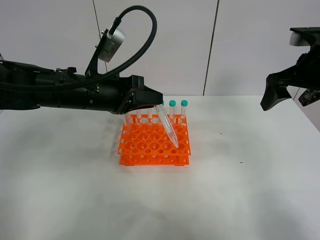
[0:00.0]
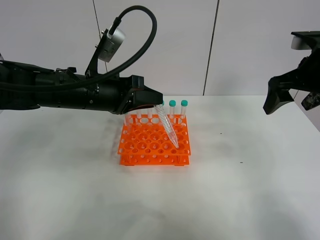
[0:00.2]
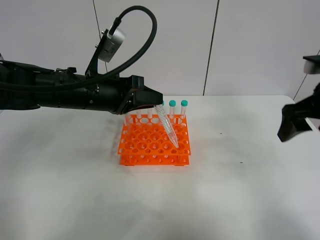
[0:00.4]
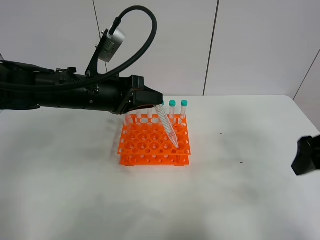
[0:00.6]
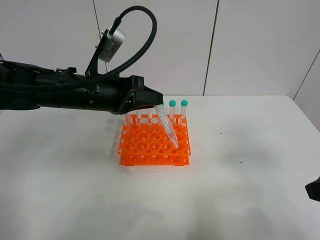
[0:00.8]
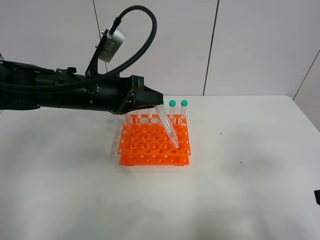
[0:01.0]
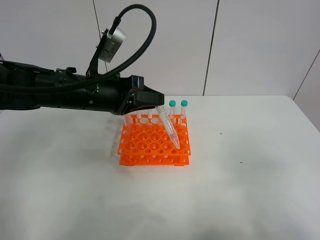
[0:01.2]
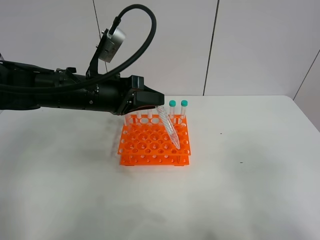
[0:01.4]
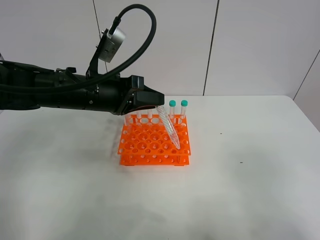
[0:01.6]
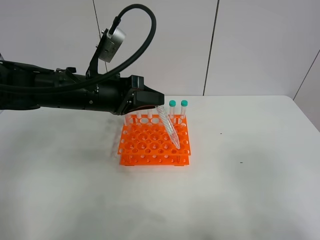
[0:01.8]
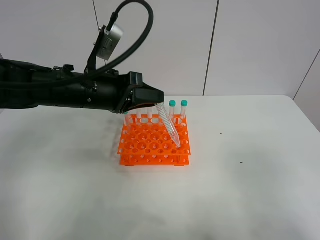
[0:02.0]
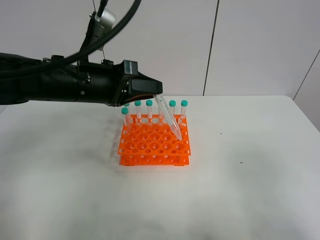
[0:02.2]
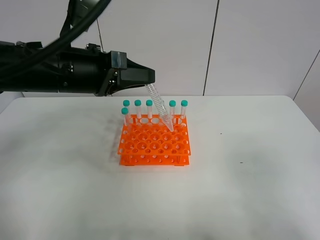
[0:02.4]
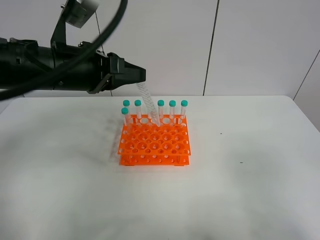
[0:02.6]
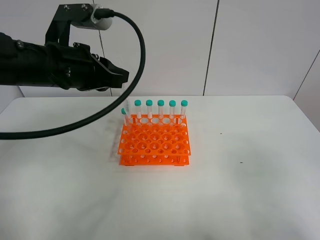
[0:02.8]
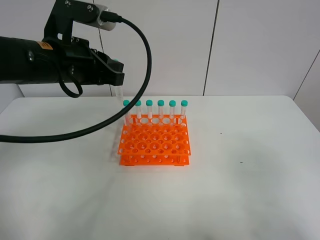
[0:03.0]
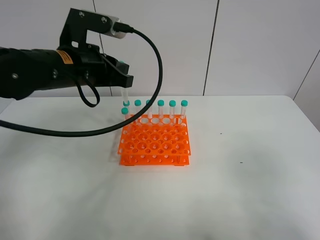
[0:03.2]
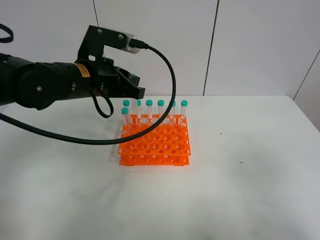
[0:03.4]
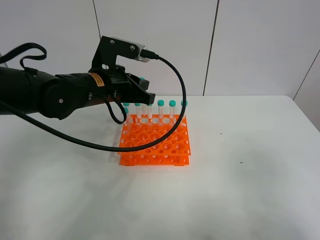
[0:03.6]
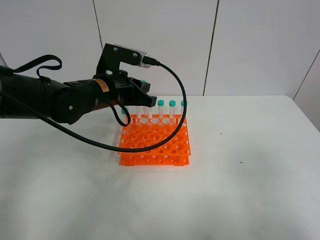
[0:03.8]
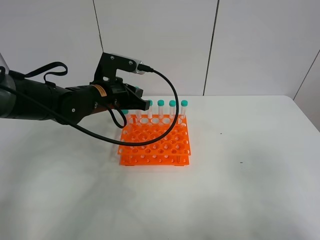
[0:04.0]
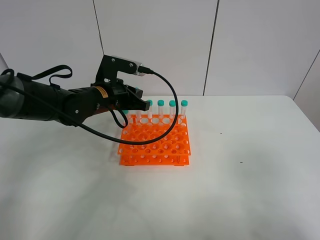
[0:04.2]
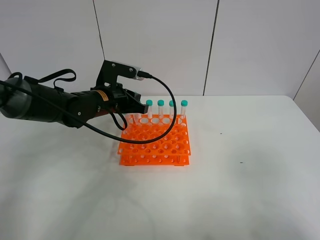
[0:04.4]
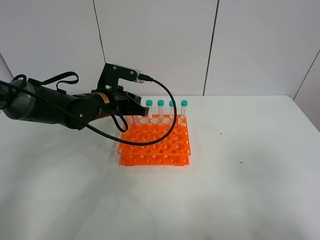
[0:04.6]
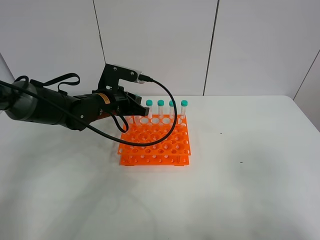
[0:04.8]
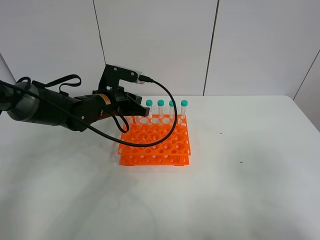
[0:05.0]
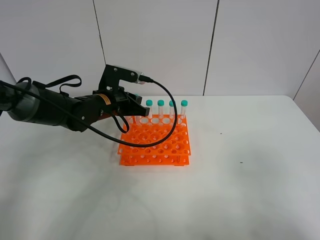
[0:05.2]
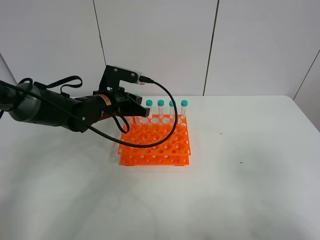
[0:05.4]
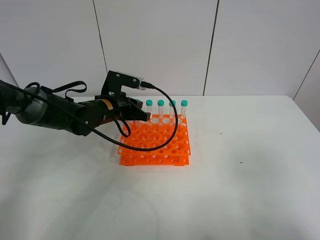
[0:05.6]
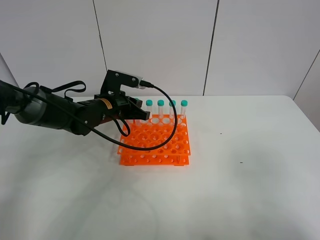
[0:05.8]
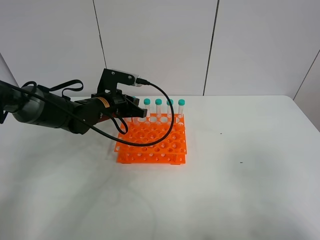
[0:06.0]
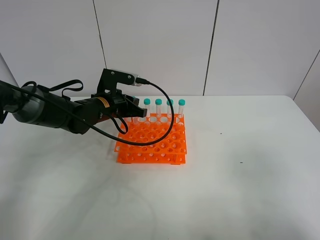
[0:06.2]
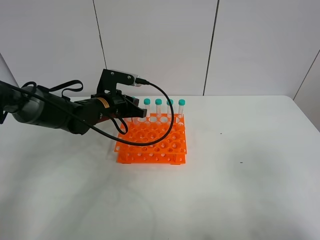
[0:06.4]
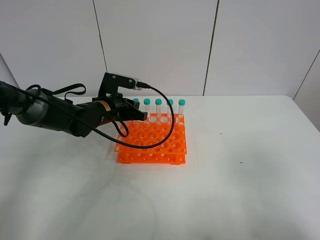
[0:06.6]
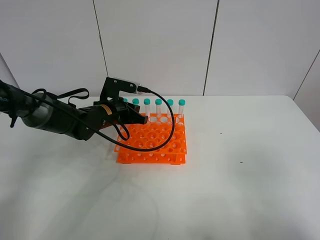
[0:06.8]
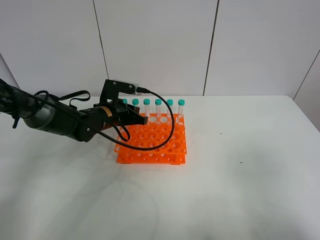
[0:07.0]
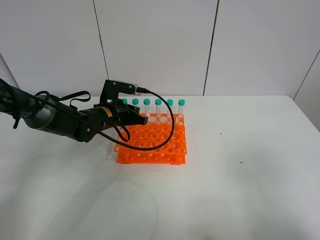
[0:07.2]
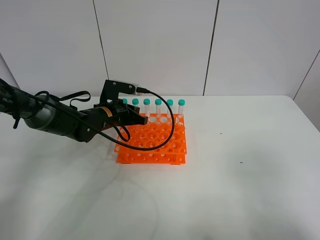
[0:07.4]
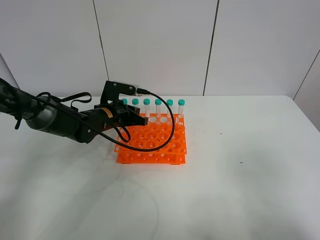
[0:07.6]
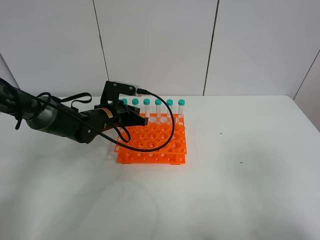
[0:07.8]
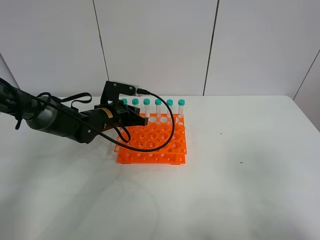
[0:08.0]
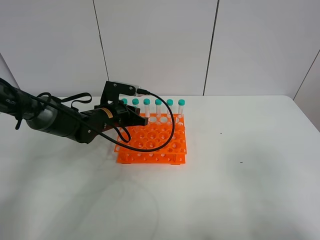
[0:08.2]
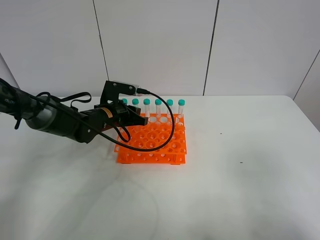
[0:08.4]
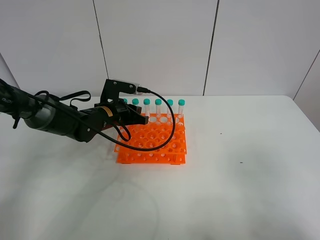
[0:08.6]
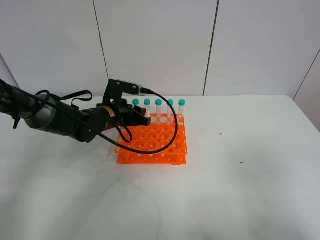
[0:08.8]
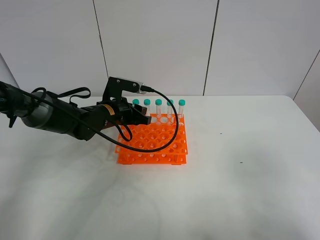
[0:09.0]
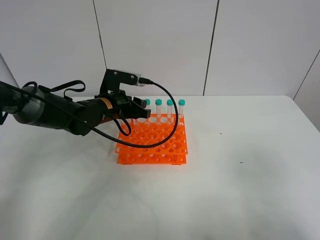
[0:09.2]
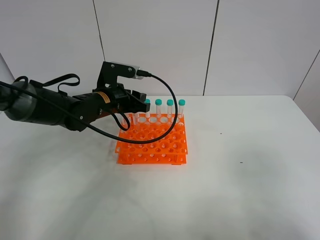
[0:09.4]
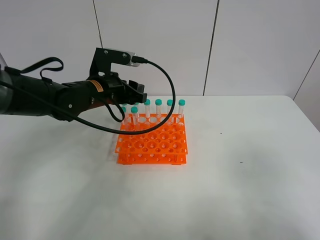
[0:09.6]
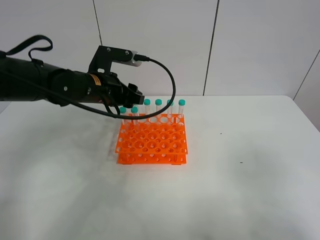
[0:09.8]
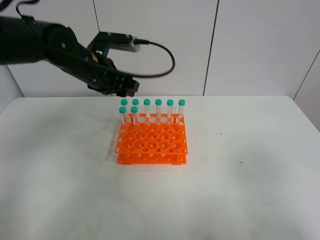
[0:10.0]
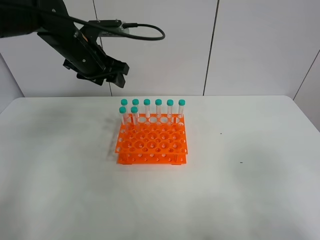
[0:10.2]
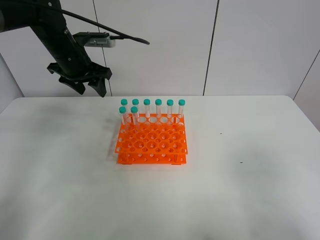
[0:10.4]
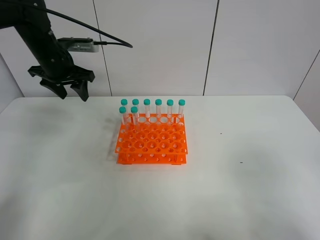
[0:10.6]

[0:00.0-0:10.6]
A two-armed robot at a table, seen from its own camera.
Task of the whole recording: Put the test tube on the table back onto the test tube rack.
Step, 0:00.0 to 0:08.6: Place the test tube on the test tube rack with the left gripper.
0:00.0 to 0:01.6: The right gripper heads backward, covering roughly 30 cm.
0:01.6 to 0:03.0: The left gripper travels upward by about 5 cm.
0:03.0 to 0:04.6: The left gripper moves downward and forward, roughly 15 cm.
0:04.6 to 0:07.6: The grippers make only small movements.
0:07.6 to 0:09.0: The left gripper opens.
0:09.0 to 0:10.6: The left gripper goes about 20 cm to the left, upward and forward.

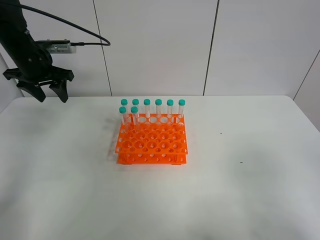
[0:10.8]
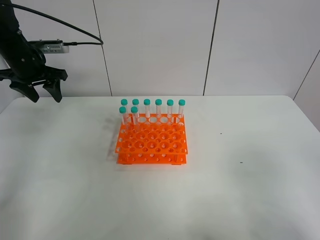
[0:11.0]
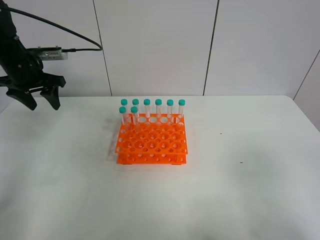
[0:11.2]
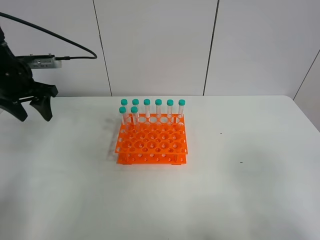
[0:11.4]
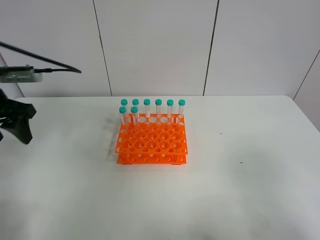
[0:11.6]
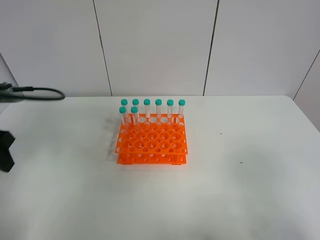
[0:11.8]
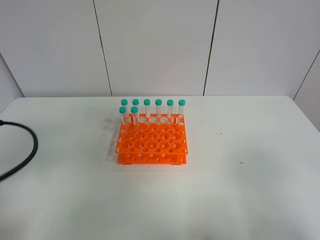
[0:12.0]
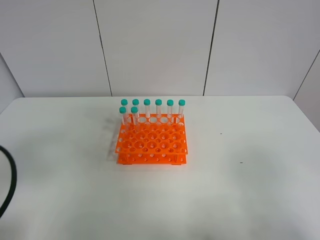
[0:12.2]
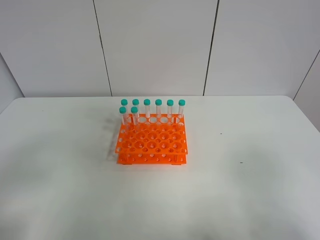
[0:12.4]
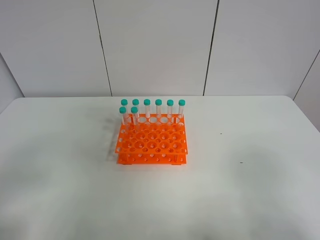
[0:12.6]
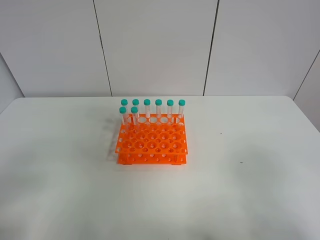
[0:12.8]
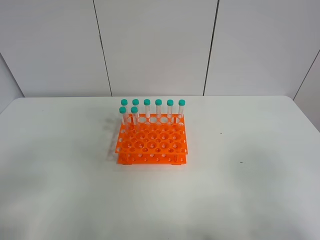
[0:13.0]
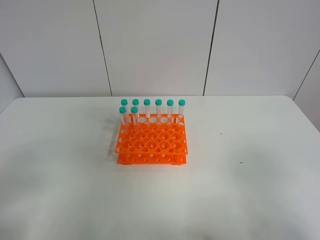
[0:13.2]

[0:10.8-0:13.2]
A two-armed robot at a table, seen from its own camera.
Task of the whole recording: Put the test tube on the table back onto the test tube rack.
0:10.8 to 0:12.0: The left gripper shifts approximately 30 cm backward.
0:12.0 to 0:13.2: The left gripper goes roughly 10 cm backward.

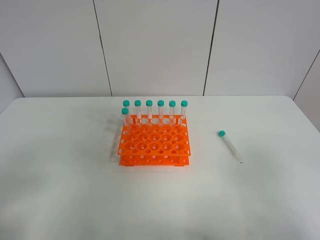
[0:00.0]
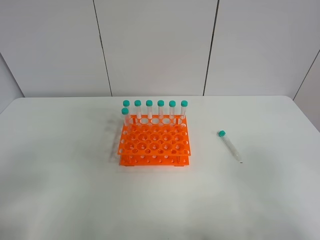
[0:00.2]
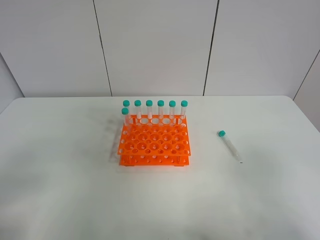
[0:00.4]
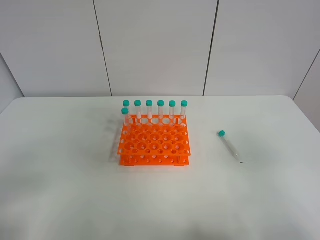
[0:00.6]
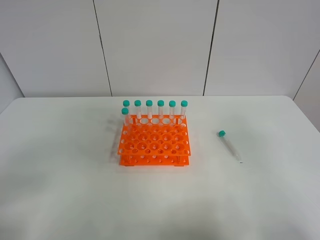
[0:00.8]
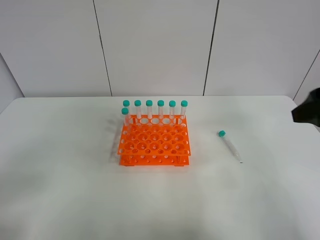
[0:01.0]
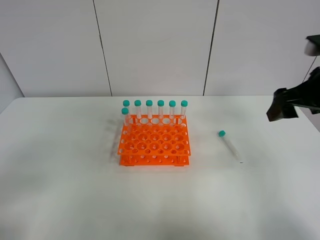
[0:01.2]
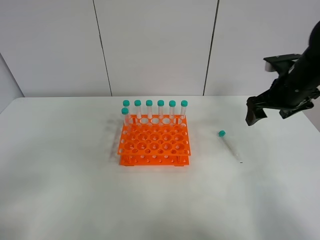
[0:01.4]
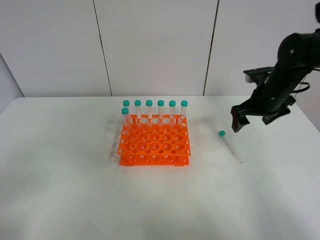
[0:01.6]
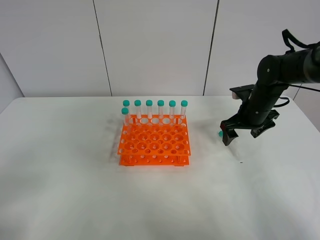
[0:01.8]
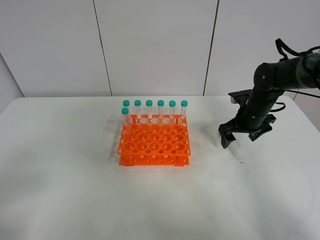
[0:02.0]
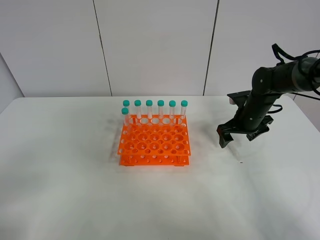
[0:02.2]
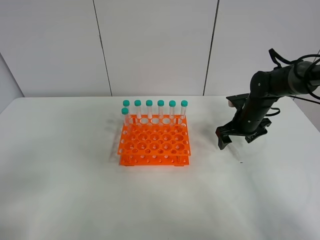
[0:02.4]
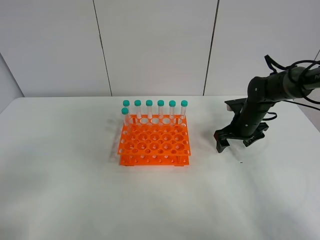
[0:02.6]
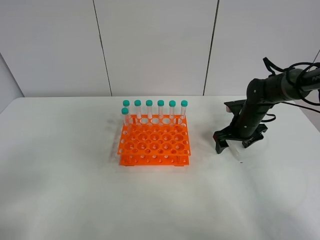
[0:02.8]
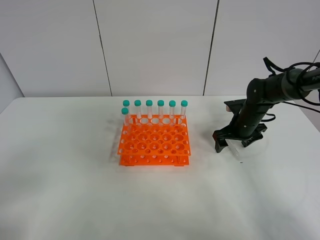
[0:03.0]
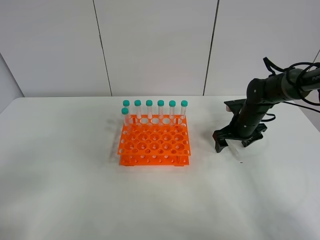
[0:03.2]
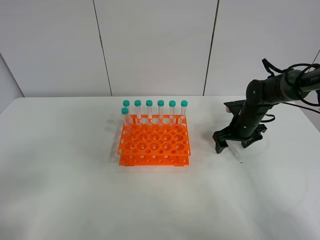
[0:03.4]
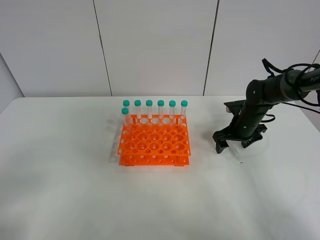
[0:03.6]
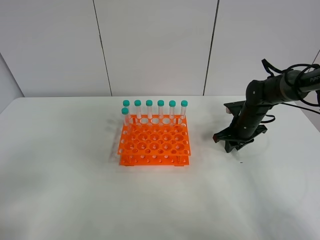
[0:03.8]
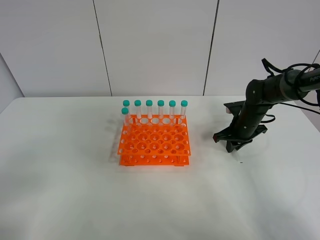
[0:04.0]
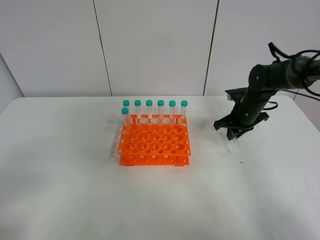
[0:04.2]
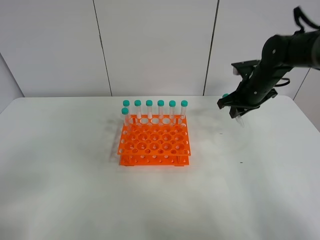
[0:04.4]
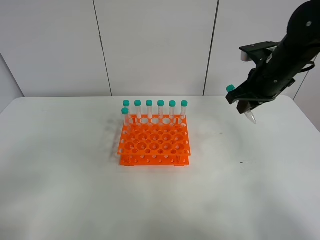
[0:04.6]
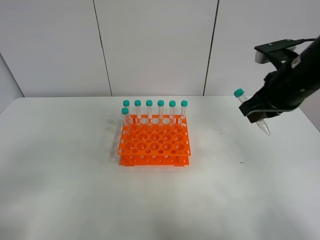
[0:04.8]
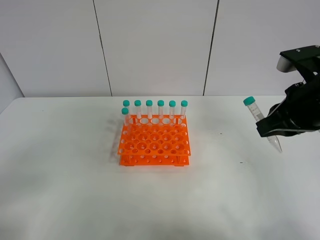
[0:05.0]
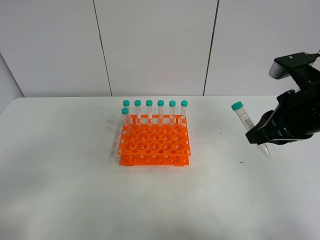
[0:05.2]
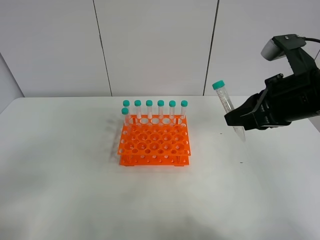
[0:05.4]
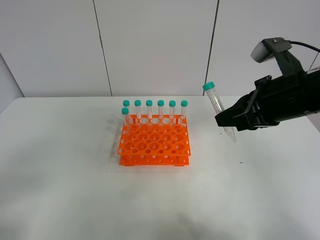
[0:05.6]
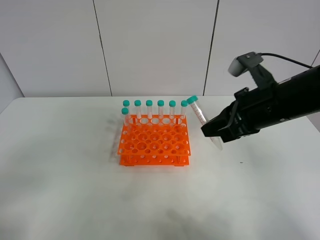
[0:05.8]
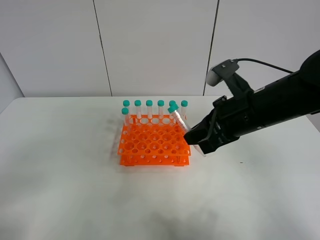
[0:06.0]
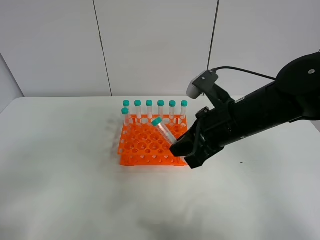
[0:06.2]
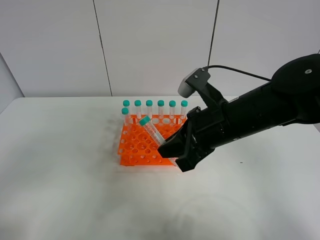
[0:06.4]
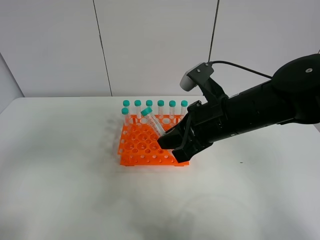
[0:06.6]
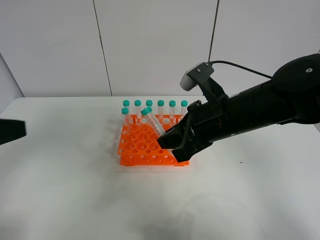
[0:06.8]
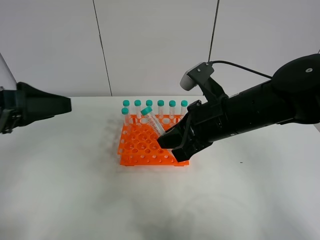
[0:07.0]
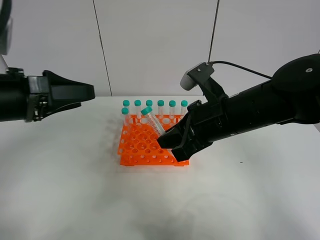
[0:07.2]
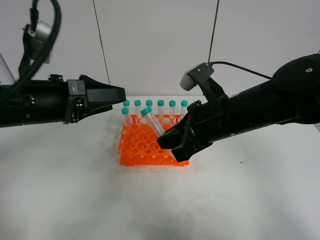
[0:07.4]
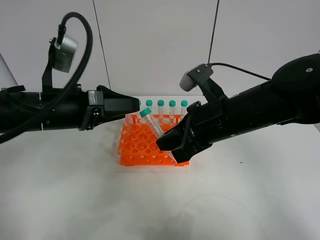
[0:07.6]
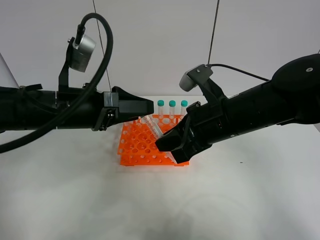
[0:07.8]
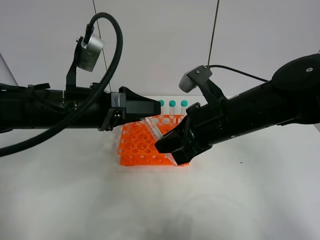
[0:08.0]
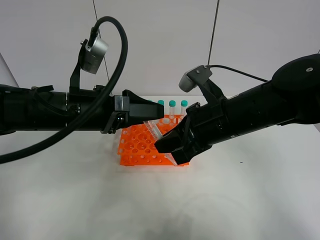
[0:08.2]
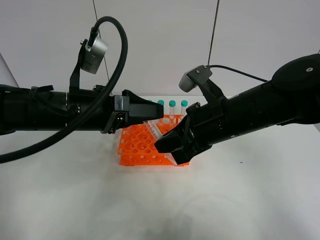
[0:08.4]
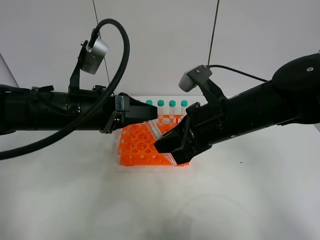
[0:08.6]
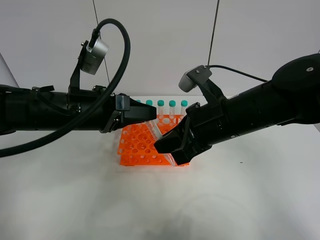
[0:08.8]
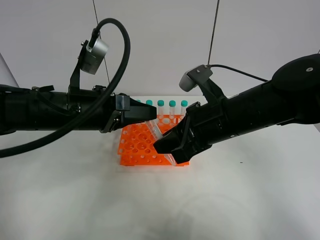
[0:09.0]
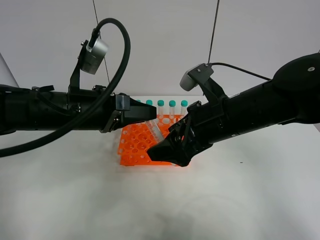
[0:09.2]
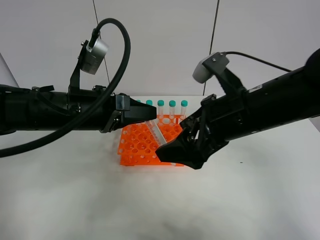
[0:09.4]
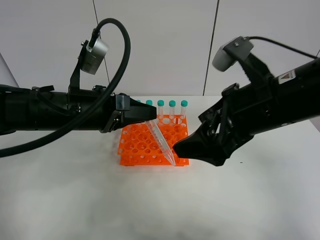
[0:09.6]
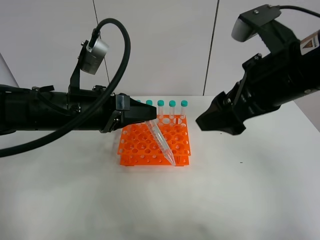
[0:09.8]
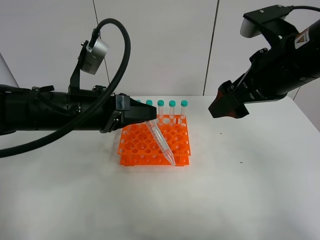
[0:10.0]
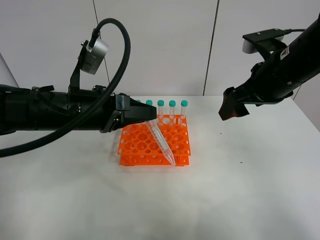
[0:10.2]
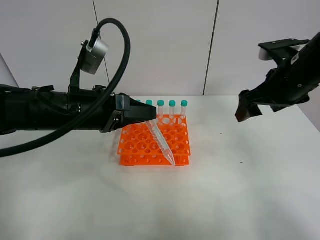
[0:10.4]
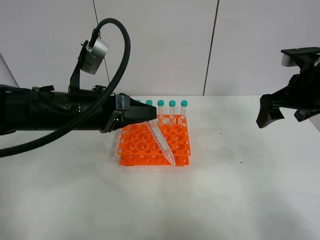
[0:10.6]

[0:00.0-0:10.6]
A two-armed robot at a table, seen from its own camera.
Task of the whole recording: Put the test tube on the table back onto the test tube rack.
Step, 0:00.0 to 0:03.8: Pick up the test tube with the right gripper.
Step, 0:04.0 to 0:09.2: Move the test tube from the right gripper to the left gripper.
0:00.0 to 0:01.6: The right gripper is displaced forward by roughly 35 cm.
0:01.6 to 0:03.0: The right gripper is displaced downward by some 10 cm.
0:03.0 to 0:04.6: The right gripper travels upward and backward by about 20 cm, and closes.
0:04.6 to 0:06.0: The right gripper heads backward and to the left, covering roughly 10 cm.
0:06.0 to 0:07.6: The left gripper travels forward and to the right by roughly 25 cm.
0:07.6 to 0:09.0: The left gripper closes up; the right gripper opens.
0:09.0 to 0:10.6: The right gripper travels to the right by about 15 cm, and opens up.
